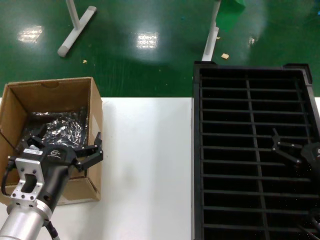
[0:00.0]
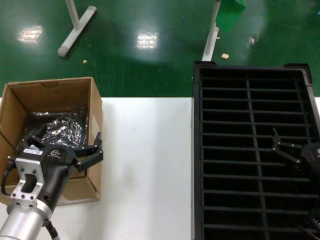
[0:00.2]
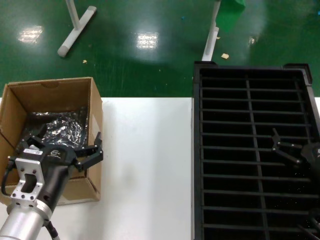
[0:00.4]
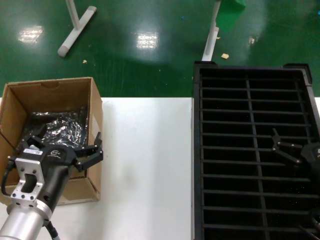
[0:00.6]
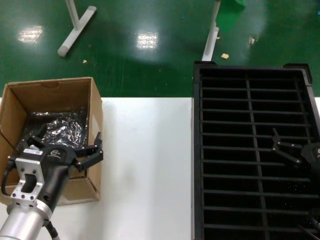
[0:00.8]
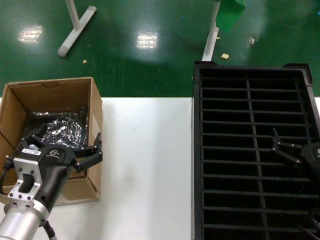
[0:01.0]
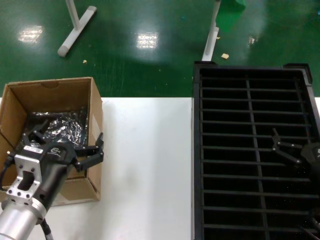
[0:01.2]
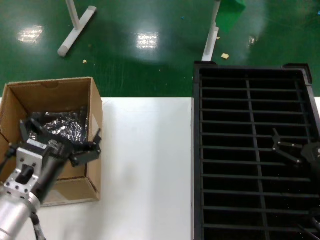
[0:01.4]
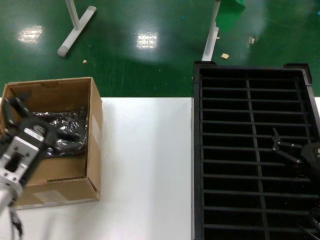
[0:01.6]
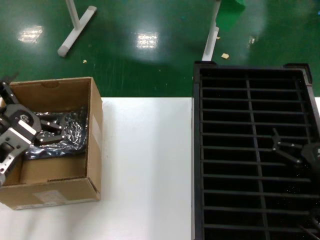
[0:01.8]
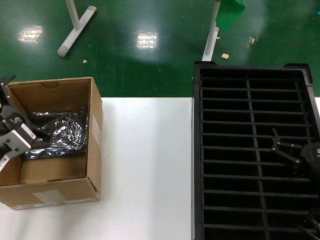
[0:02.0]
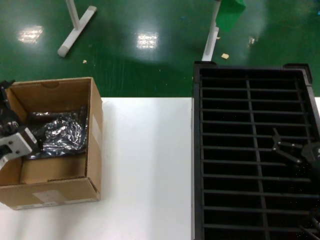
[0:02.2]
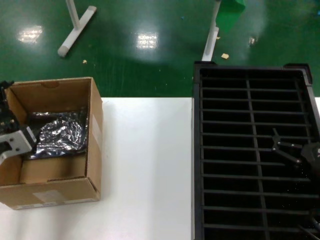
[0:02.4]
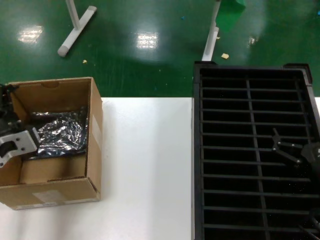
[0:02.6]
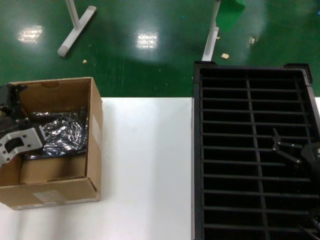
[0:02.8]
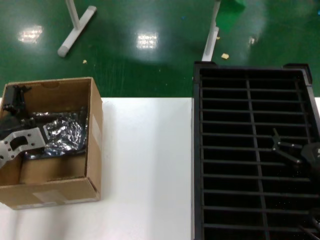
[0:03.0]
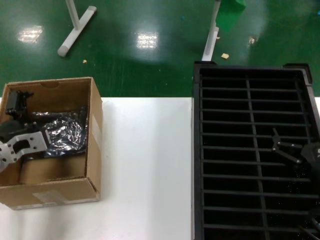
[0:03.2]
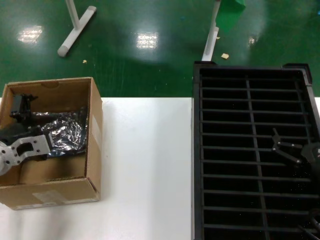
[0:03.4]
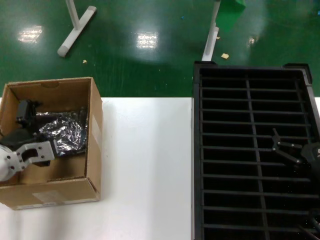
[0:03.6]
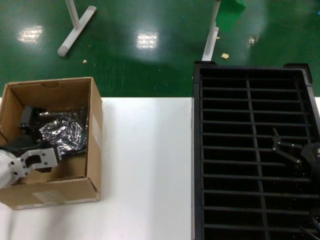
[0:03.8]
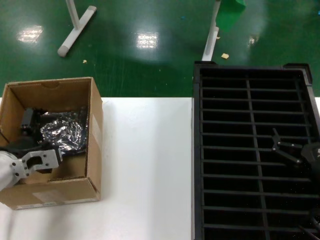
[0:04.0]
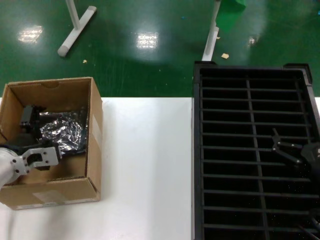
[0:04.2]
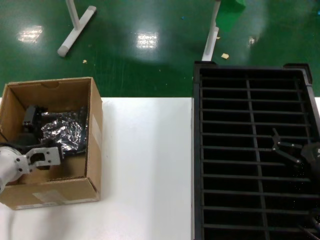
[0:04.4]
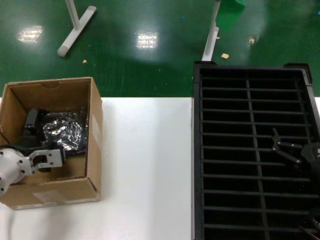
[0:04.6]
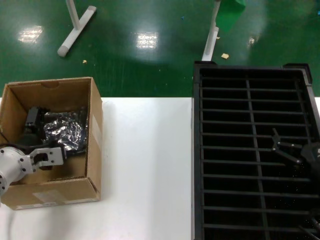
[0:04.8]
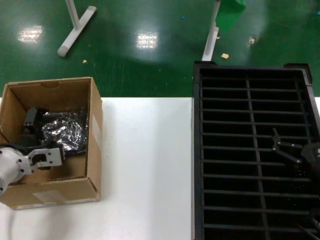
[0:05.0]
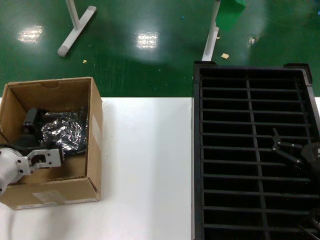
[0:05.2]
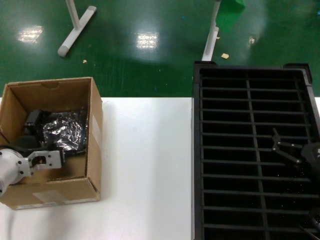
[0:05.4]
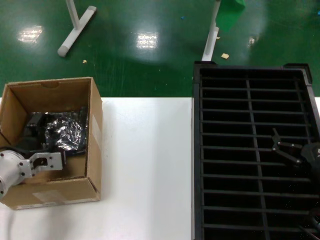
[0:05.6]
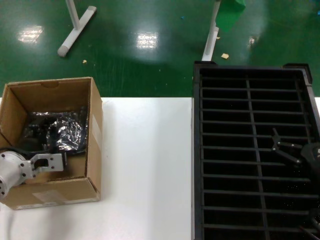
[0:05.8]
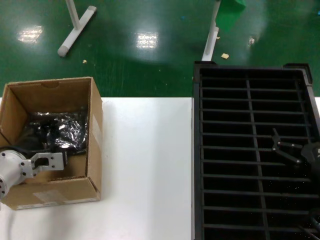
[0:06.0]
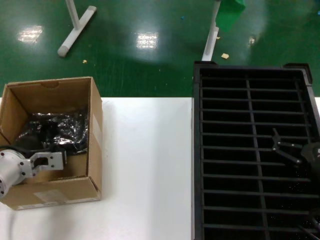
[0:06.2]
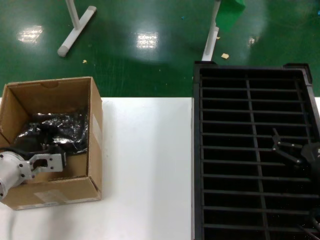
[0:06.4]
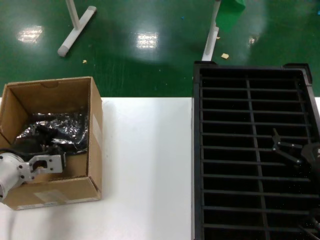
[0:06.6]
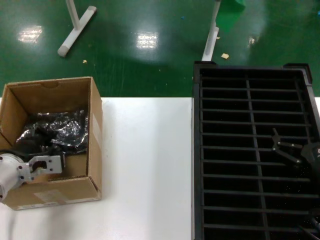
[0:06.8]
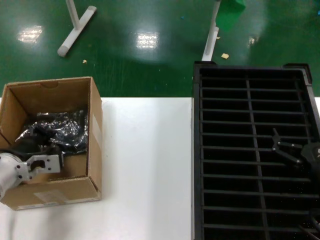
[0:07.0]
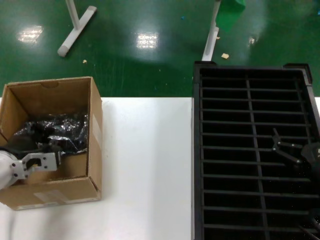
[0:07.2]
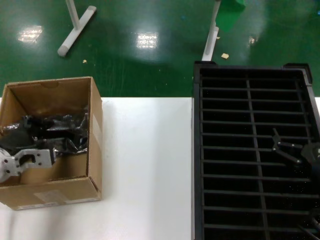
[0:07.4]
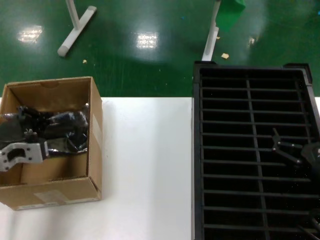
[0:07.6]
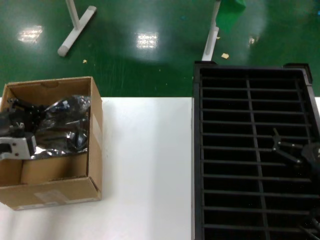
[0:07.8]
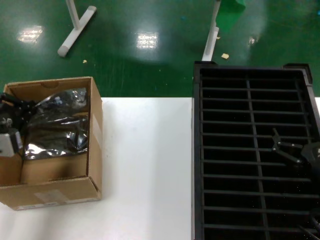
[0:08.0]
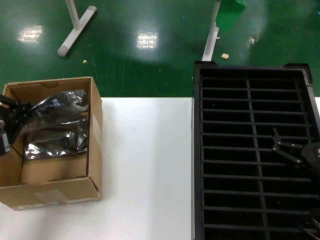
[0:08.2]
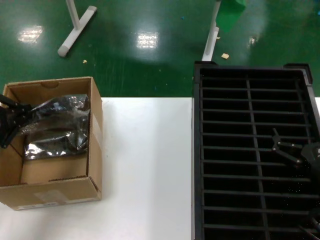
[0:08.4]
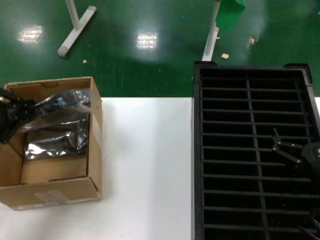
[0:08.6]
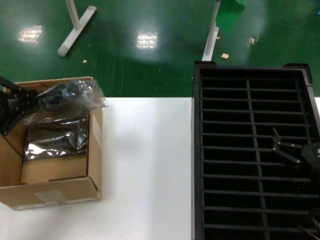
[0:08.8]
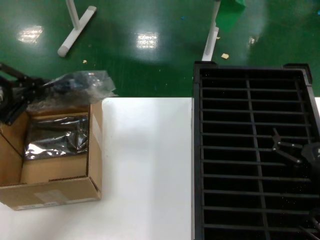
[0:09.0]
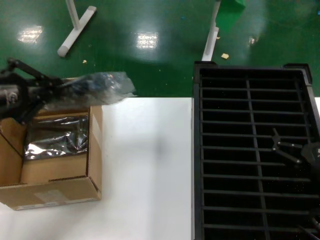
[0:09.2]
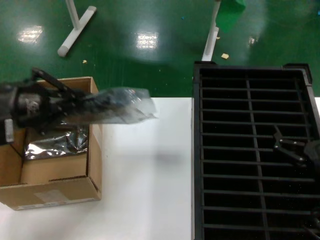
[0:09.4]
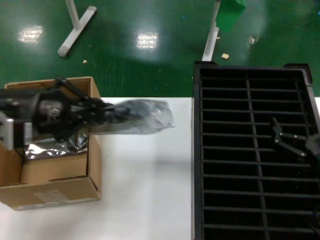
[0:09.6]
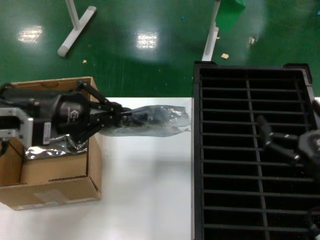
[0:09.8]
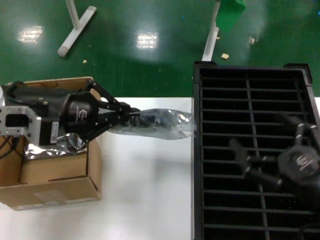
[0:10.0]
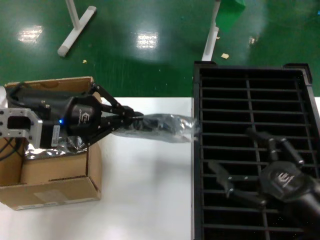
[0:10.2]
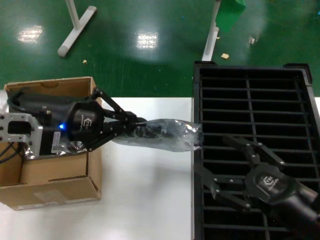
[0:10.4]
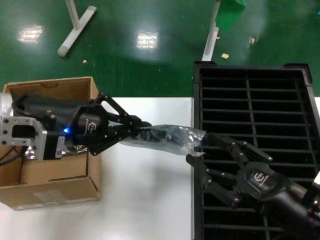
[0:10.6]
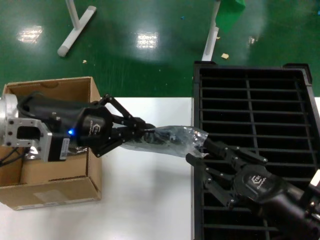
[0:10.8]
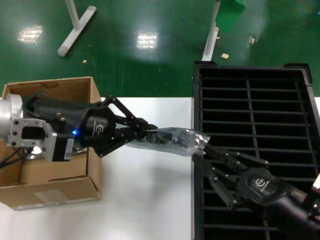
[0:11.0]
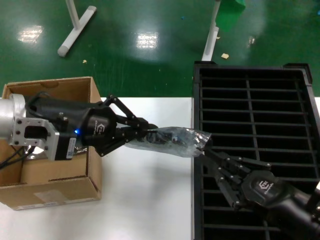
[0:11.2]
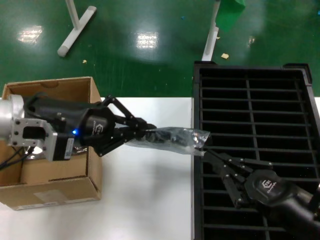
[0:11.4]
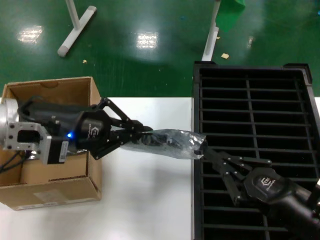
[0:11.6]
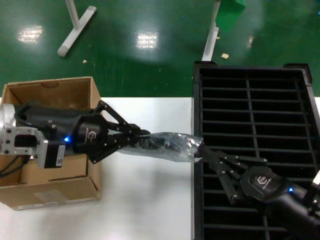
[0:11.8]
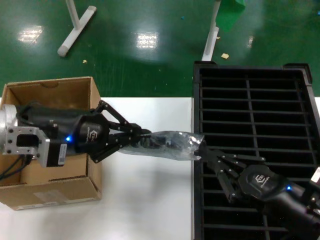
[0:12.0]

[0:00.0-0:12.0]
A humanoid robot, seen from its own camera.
Task of the whole recording: take out graphics card from box remove packaging put into black container.
Step, 0:00.0 to 0:06.6: Grasp the bag.
Step, 0:06.8 to 0:09.8: Lift the bag.
0:00.0 to 0:01.6: The left hand ends up some 5 cm from where it was.
0:01.6 to 0:03.0: The left hand heads forward and to the left, covering some 10 cm.
0:03.0 to 0:04.4: The left hand is displaced downward by roughly 5 cm.
0:04.4 to 0:06.0: Both hands stay put.
0:06.0 to 0:07.6: The left hand moves upward, about 5 cm.
0:07.6 to 0:09.0: The left hand is displaced upward and backward by approximately 15 cm.
0:09.0 to 0:10.4: The left hand shifts approximately 10 cm to the right and forward.
0:10.4 to 0:12.0: The hands stay close to where they were, moving slightly.

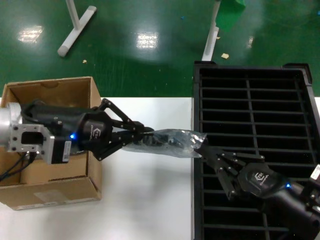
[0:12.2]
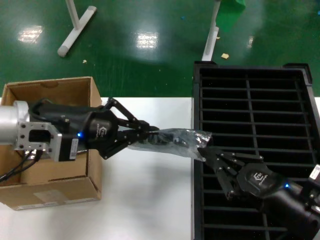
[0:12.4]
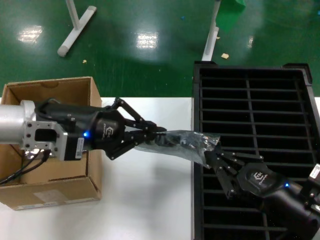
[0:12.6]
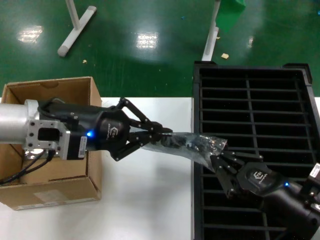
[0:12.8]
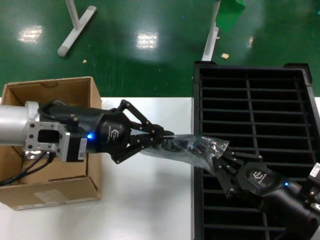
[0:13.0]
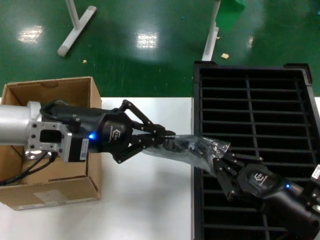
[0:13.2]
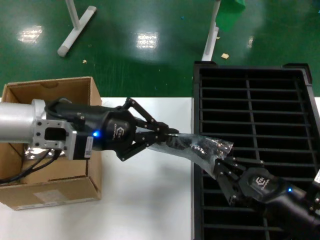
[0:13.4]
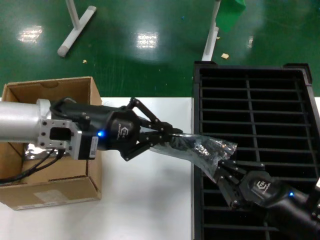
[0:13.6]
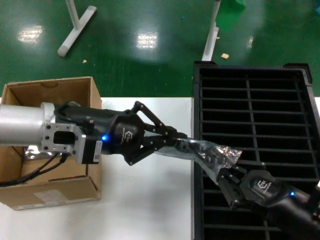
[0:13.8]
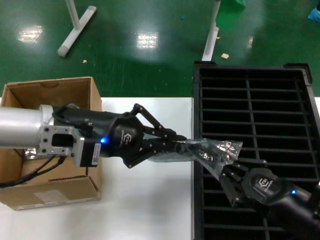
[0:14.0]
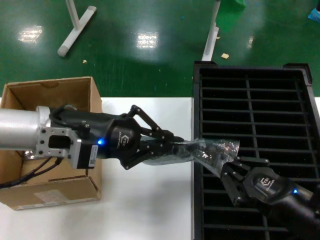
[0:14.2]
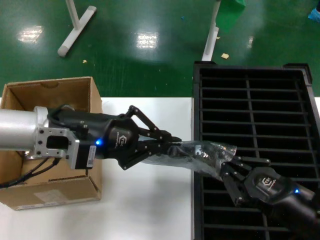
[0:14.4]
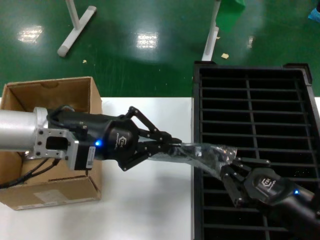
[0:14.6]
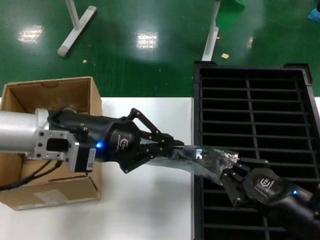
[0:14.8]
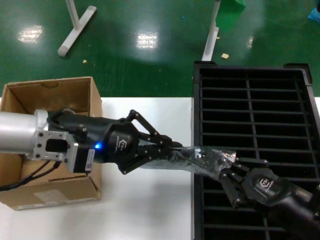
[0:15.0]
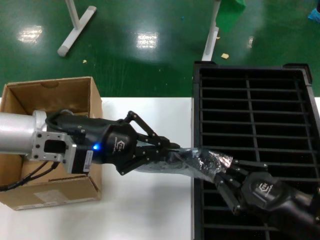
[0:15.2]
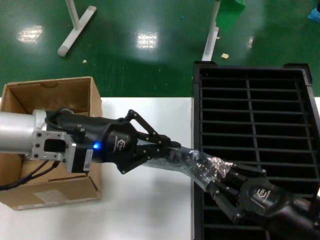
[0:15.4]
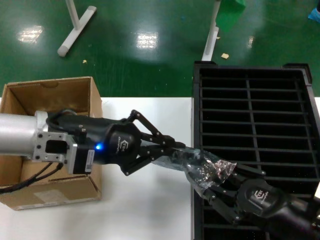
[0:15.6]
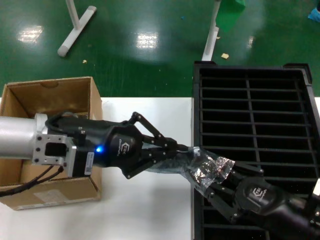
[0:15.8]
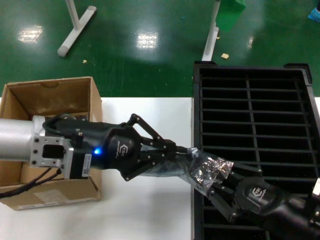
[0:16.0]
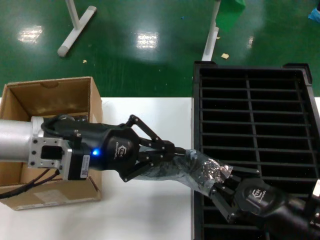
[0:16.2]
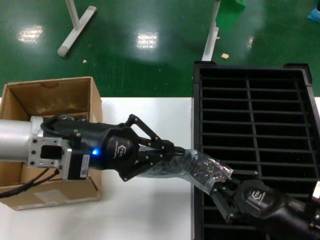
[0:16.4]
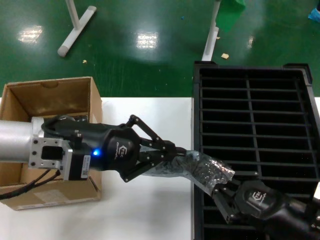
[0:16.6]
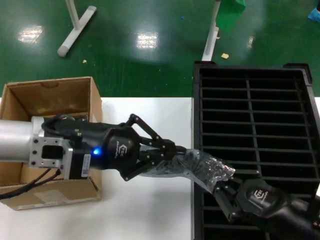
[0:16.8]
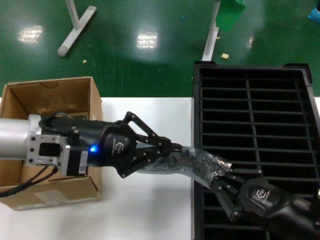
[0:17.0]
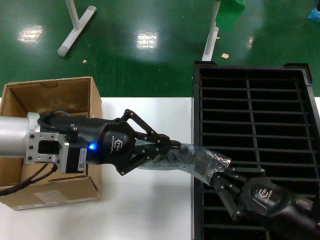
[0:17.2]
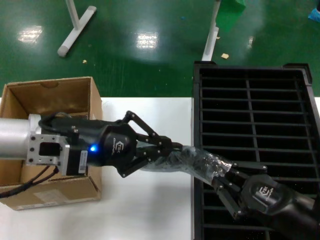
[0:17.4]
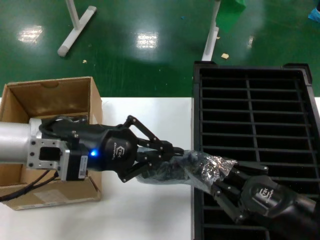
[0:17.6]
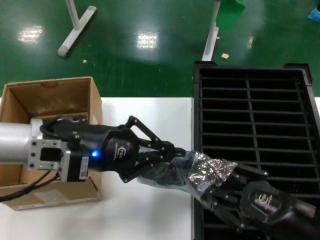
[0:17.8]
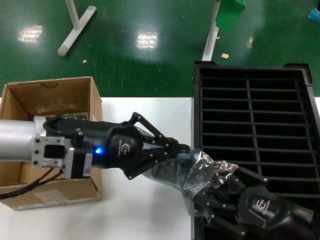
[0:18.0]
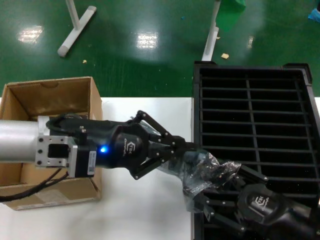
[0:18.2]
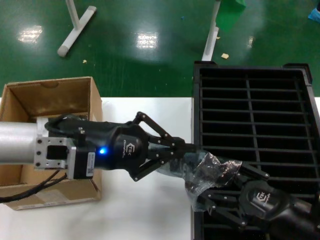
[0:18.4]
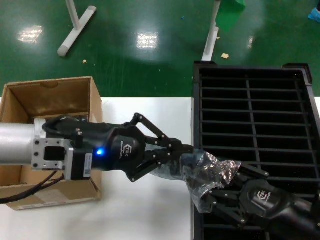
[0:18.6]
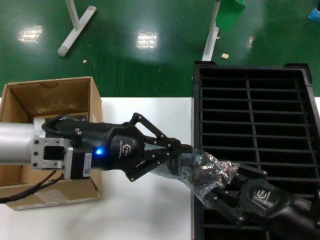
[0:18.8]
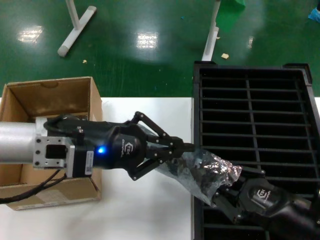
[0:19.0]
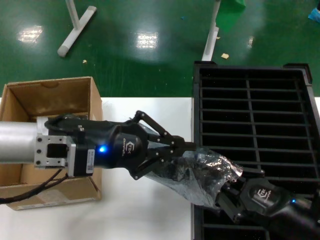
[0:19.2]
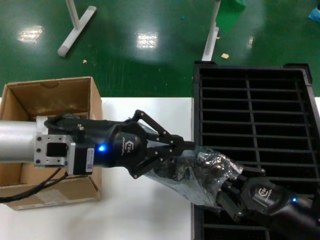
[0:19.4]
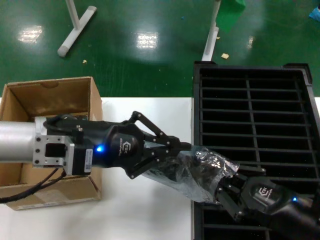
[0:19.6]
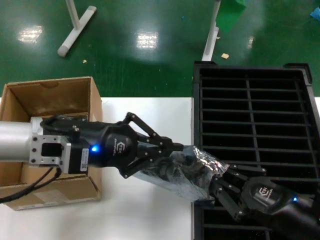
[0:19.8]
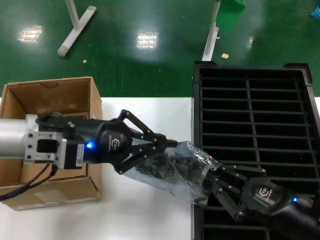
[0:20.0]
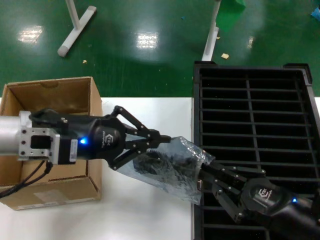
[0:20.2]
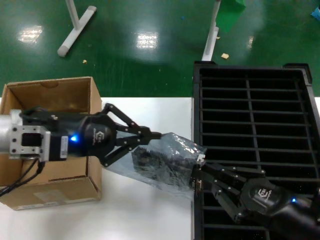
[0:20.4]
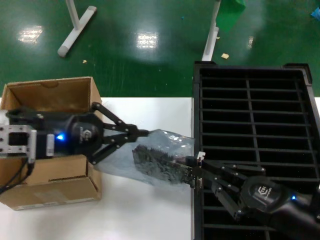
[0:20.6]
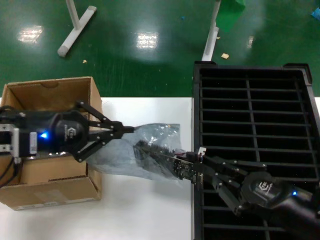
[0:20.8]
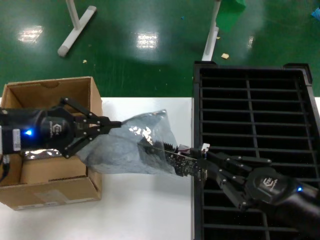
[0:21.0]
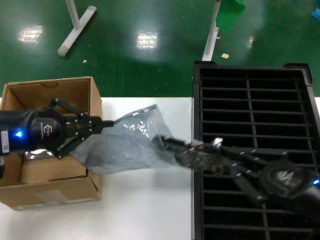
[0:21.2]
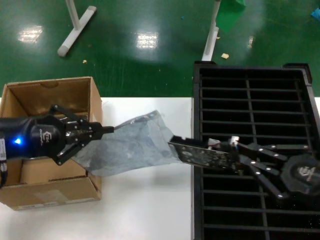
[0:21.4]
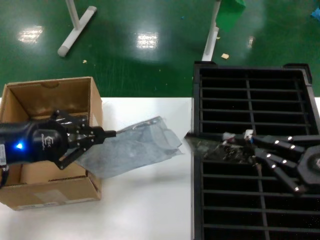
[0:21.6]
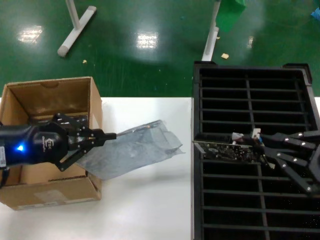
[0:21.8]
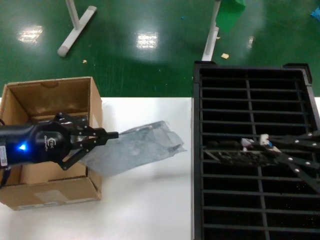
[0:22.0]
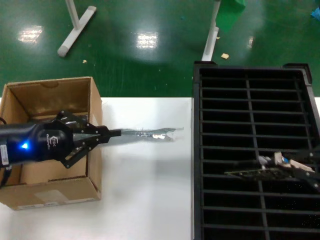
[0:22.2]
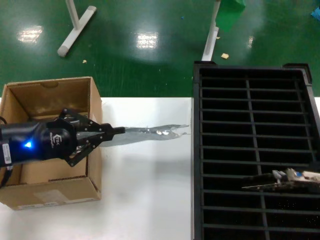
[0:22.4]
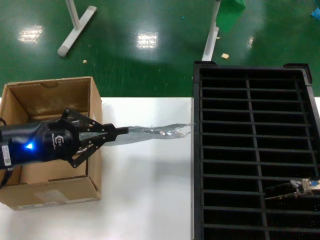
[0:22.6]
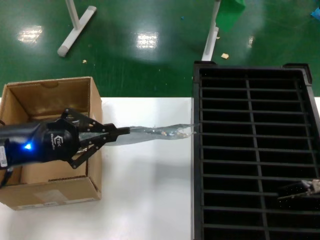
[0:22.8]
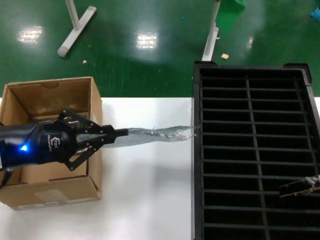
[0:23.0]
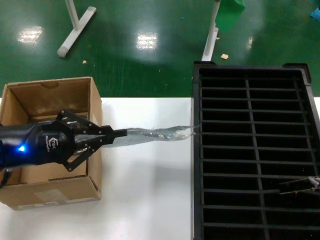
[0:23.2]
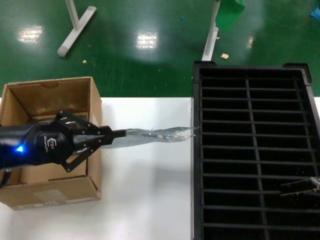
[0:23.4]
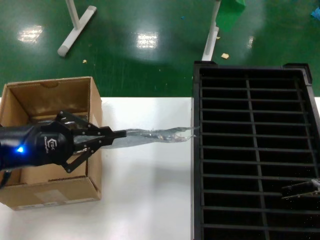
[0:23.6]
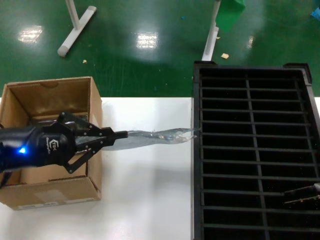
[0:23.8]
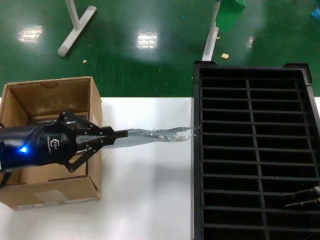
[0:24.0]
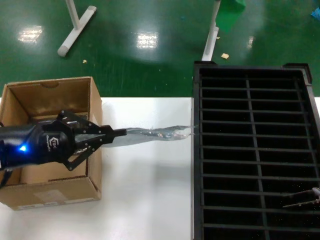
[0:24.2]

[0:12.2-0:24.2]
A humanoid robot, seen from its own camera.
Task of the whole recording: take out graphics card from box remove packaging put into black container.
Step, 0:12.2 to 0:21.4: Take out the hard disk of the bag.
0:12.2 to 0:13.8: There are only small adjustments of the hands.
0:13.8 to 0:15.2: Neither hand changes place.
0:15.2 to 0:19.8: The hands move only a little.
0:19.8 to 0:21.2: The left hand shifts roughly 10 cm to the left.
0:21.2 to 0:22.6: The right hand heads upward, covering roughly 20 cm; the left hand is displaced downward by roughly 5 cm.
0:22.6 to 0:24.2: There are only small adjustments of the hands.
